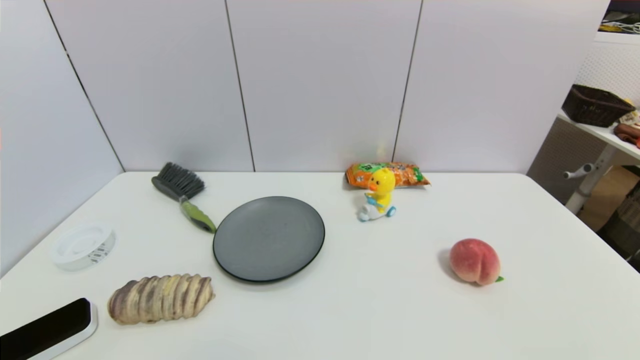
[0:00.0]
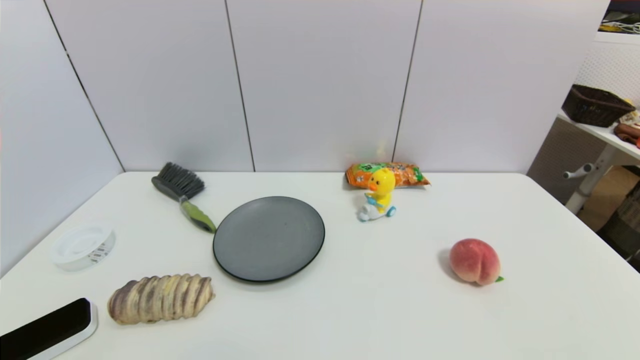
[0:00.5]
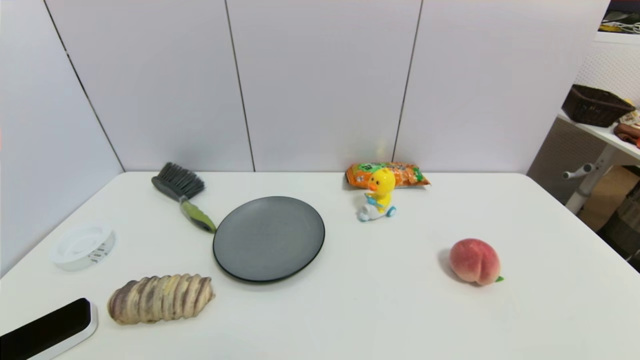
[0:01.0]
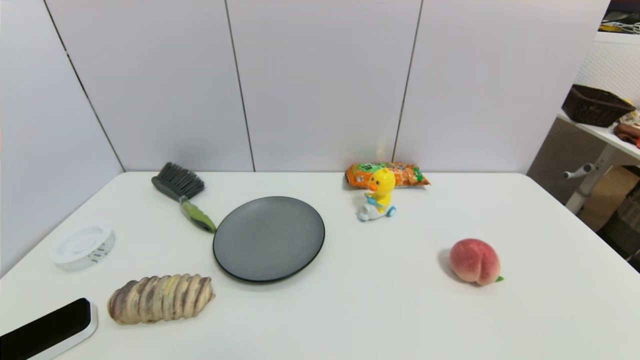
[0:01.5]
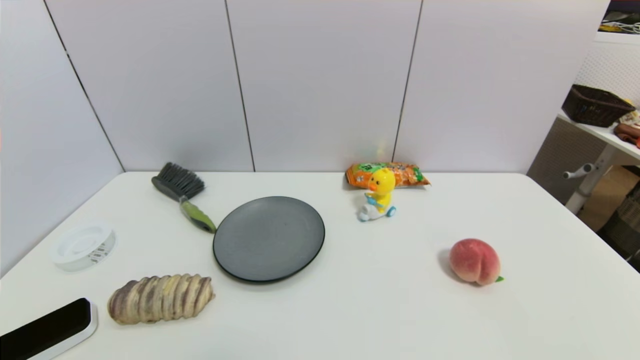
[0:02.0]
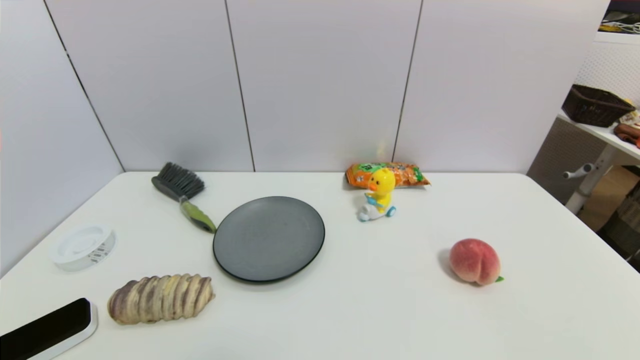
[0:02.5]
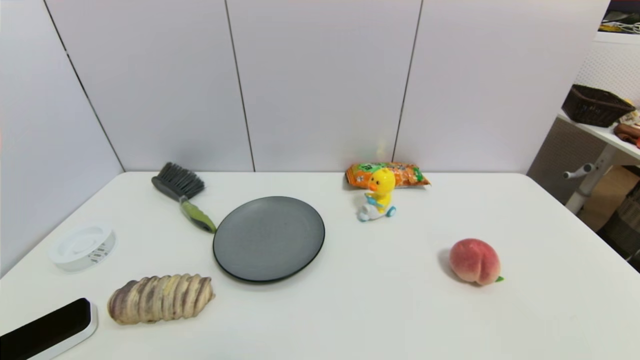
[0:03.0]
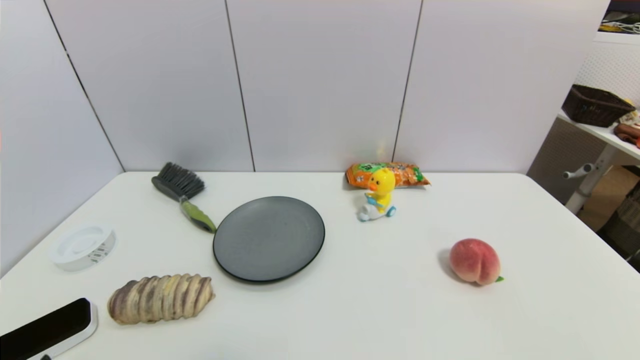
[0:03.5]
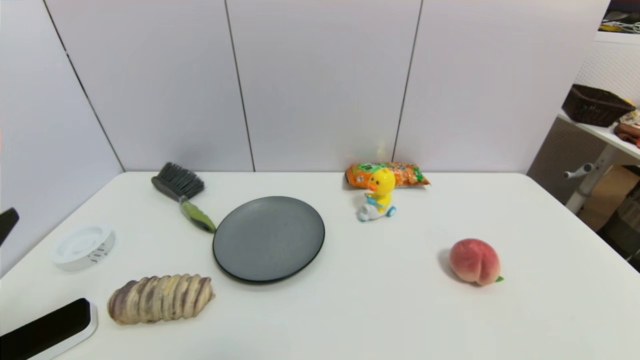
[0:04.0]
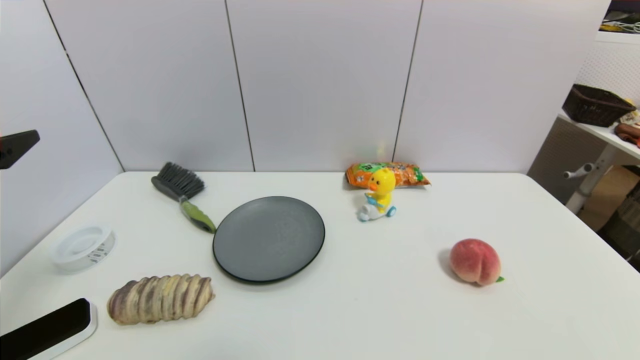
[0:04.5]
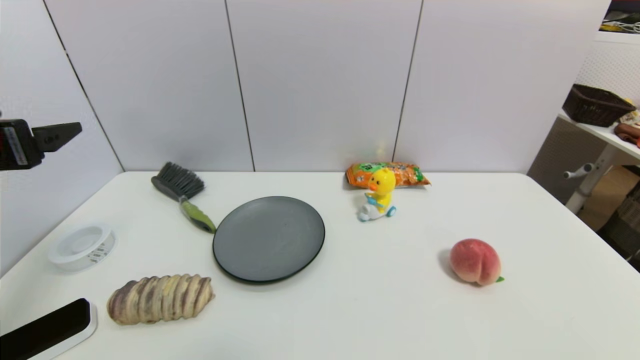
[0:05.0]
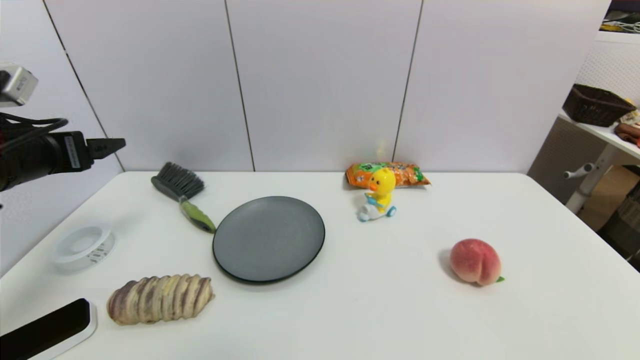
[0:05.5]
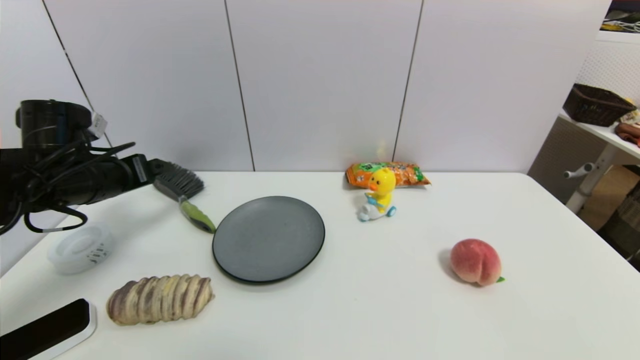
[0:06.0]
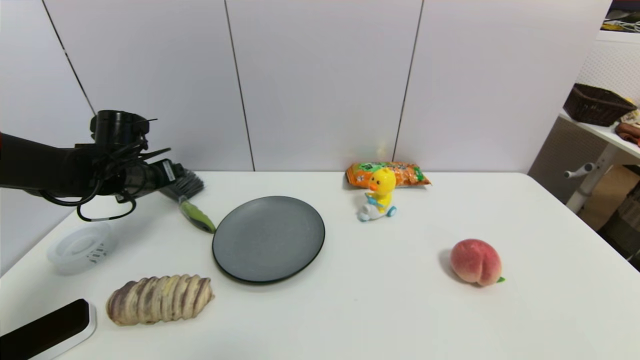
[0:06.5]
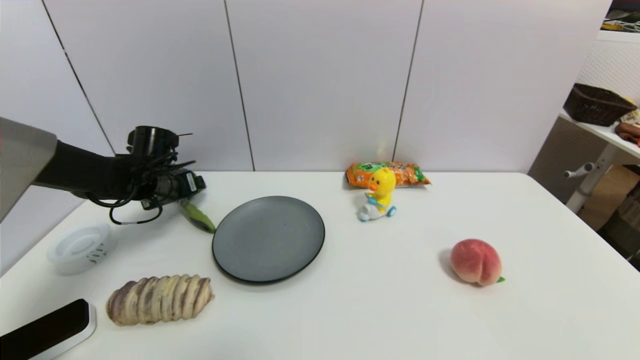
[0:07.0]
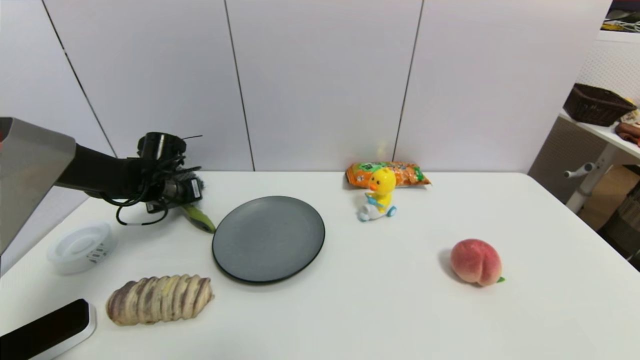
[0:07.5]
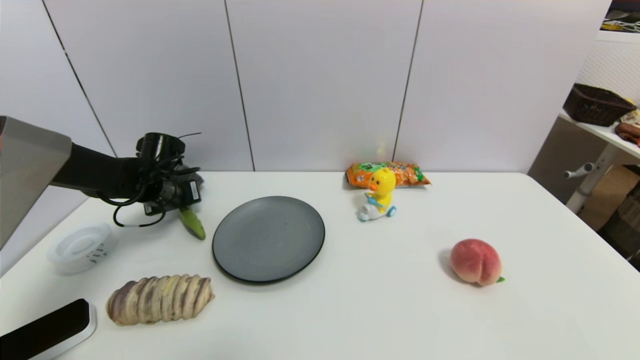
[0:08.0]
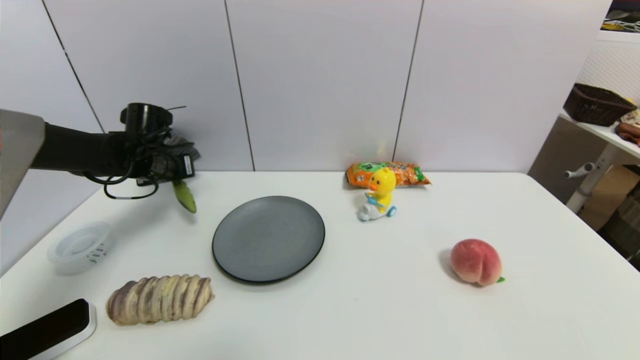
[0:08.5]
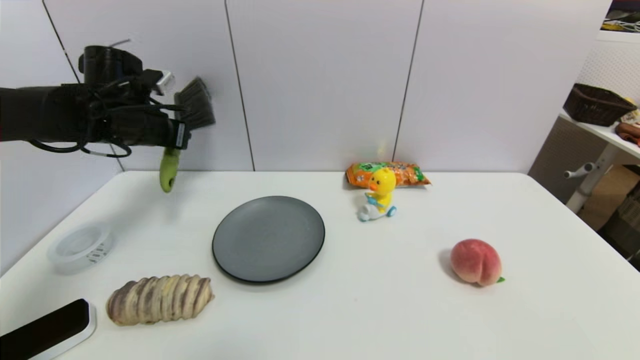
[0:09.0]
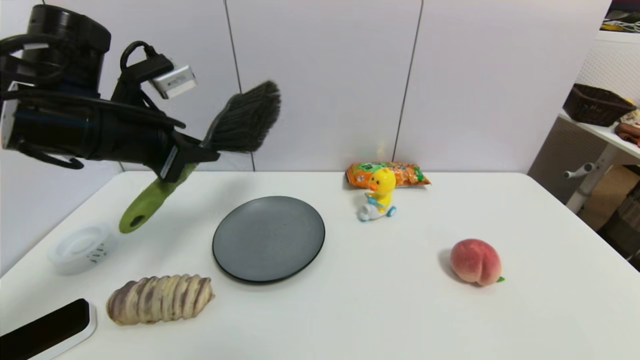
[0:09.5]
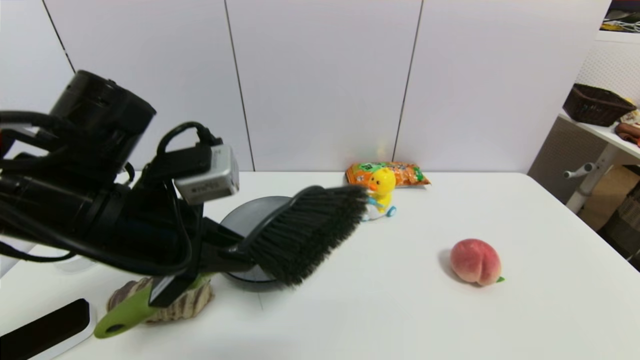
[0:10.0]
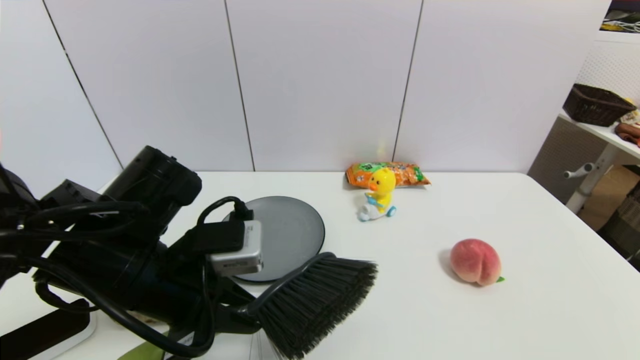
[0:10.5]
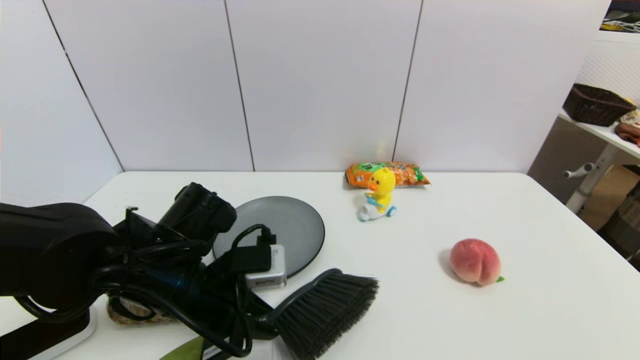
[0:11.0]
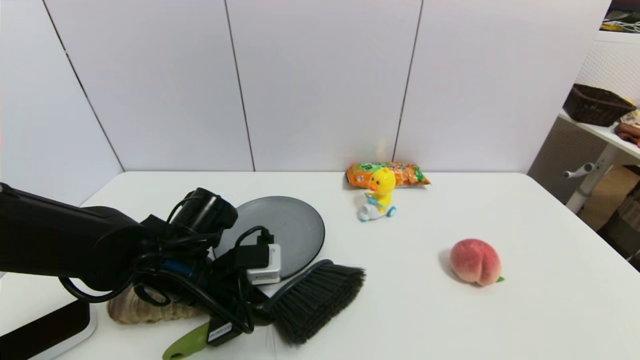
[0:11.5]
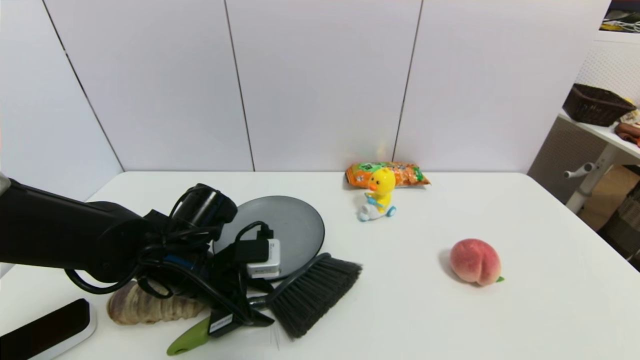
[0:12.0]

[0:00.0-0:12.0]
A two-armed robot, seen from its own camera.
Task of the whole recording: put the brush in the designated position.
Step, 0:04.0 to 0:08.0: Grasp the brush with left gripper.
Step, 0:08.5 to 0:12.0: Place the brush on the table with left gripper.
0:00.0 to 0:02.0: Both grippers stay about where they are.
0:04.0 to 0:06.0: The left gripper shifts approximately 25 cm forward.
0:06.0 to 0:08.0: The left gripper is displaced forward and downward by about 15 cm, and closes.
0:08.0 to 0:10.0: The left gripper travels backward, upward and to the right by about 30 cm.
0:10.0 to 0:12.0: The left gripper travels downward and forward by roughly 15 cm, and opens its fingers.

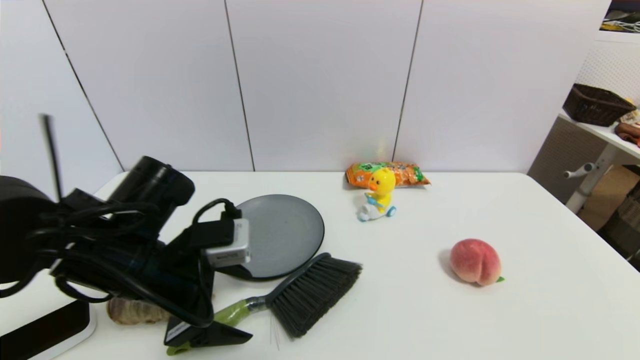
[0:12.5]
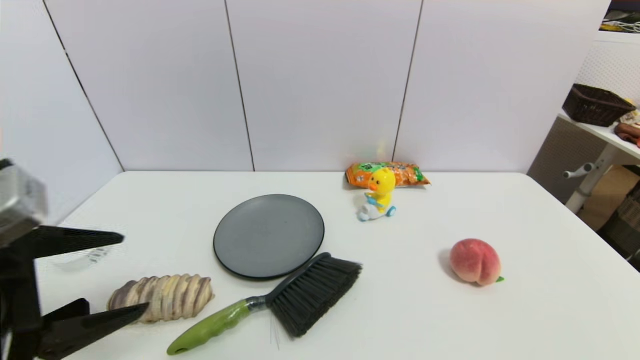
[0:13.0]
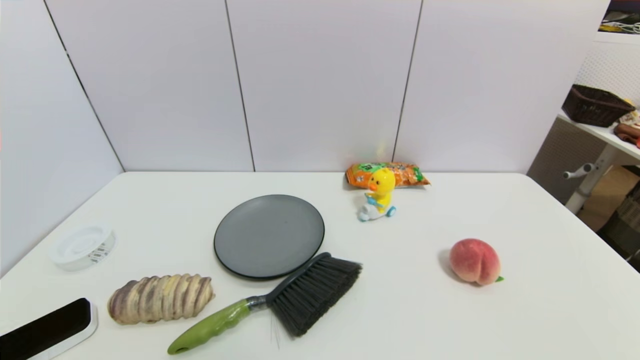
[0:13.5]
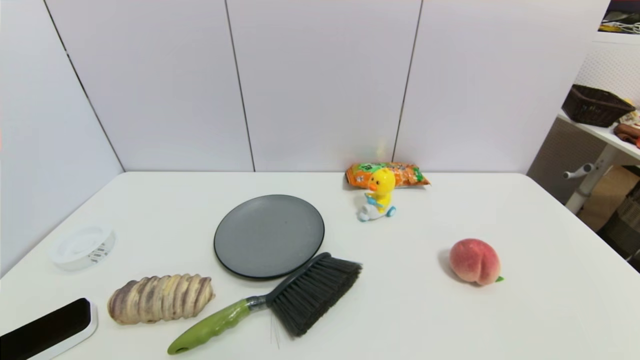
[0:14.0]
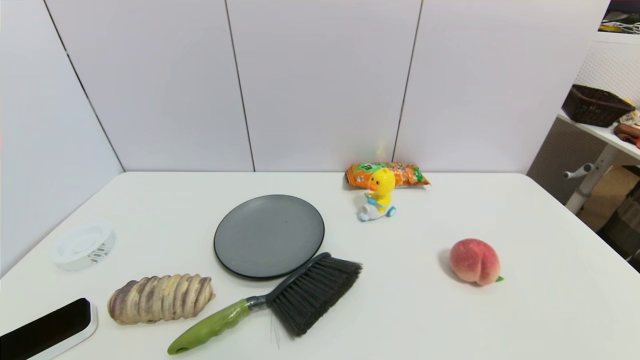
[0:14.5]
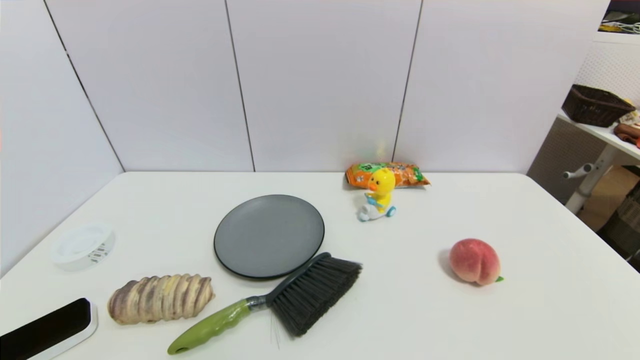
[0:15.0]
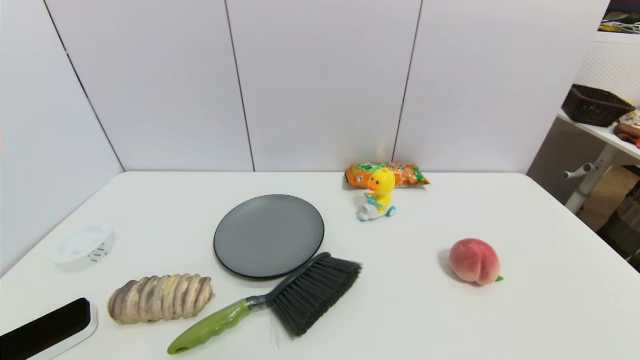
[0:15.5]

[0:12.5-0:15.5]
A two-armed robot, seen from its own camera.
Task of the whole recording: put the brush in the designated position.
0:12.5 to 0:14.0: The left gripper heads backward, to the left and downward, covering about 25 cm.
0:14.0 to 0:15.5: Both grippers stay put.

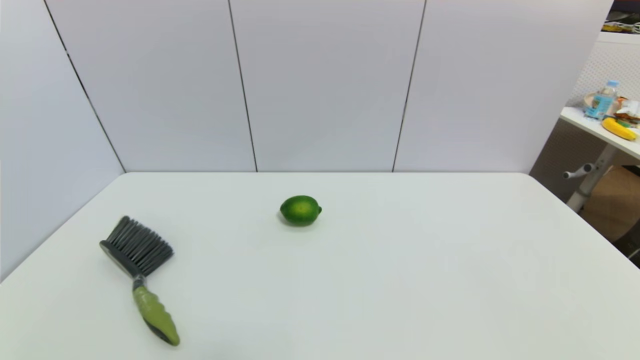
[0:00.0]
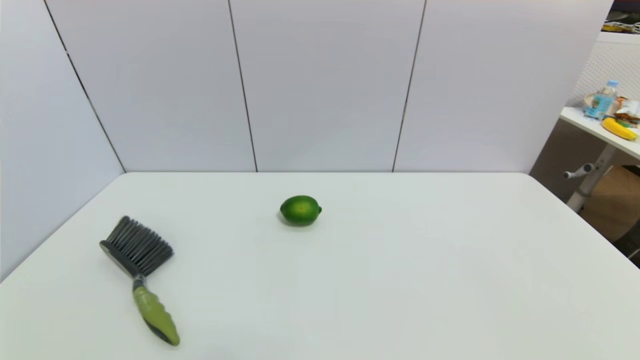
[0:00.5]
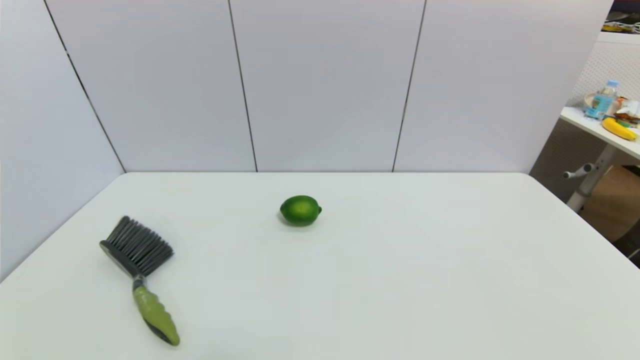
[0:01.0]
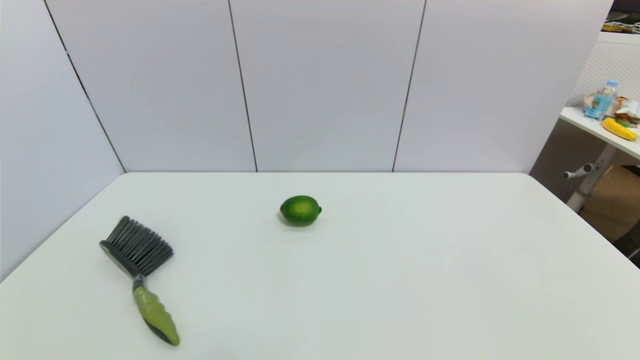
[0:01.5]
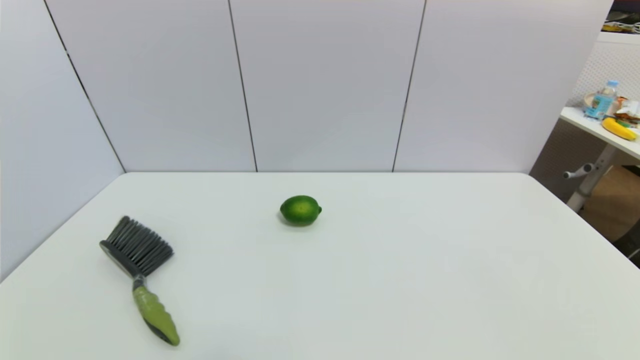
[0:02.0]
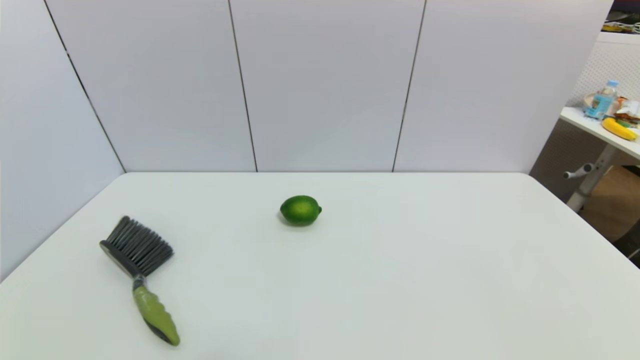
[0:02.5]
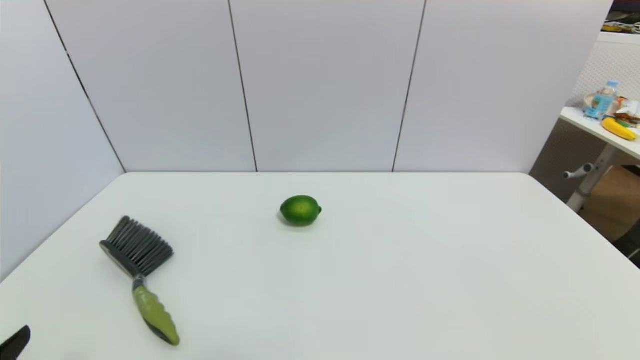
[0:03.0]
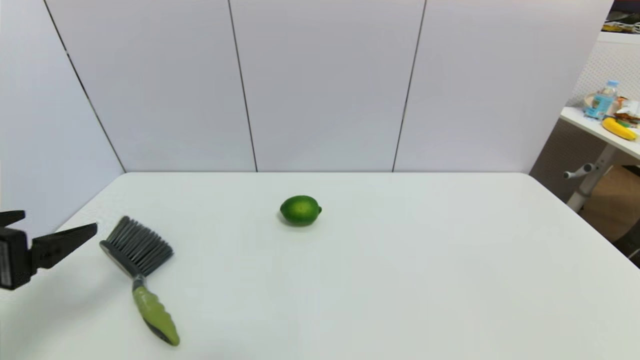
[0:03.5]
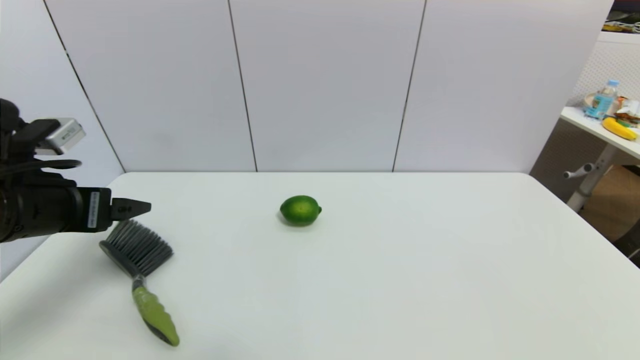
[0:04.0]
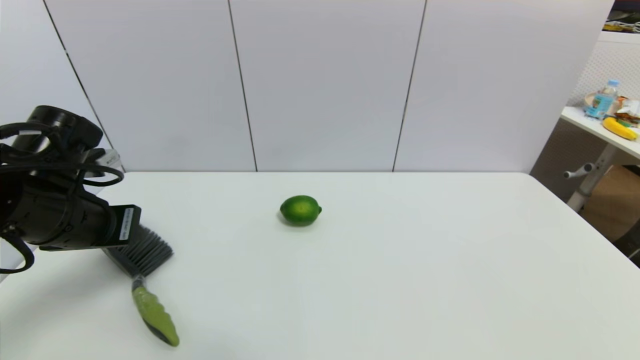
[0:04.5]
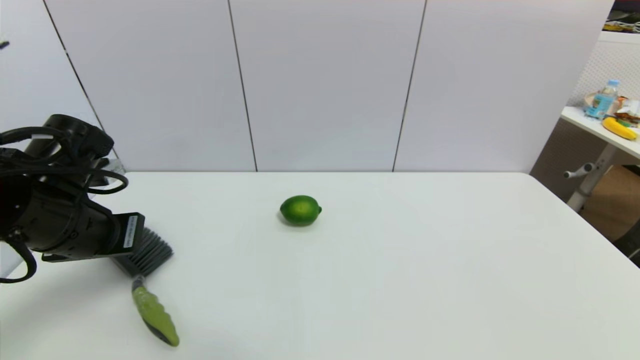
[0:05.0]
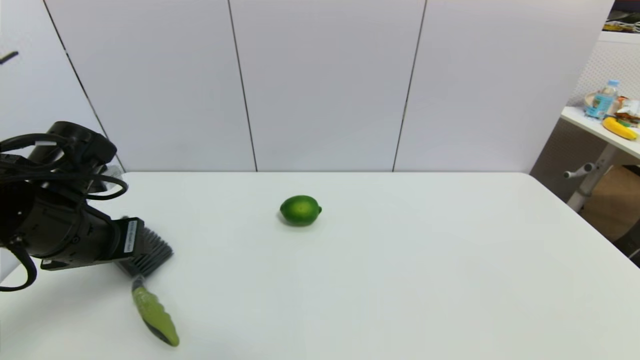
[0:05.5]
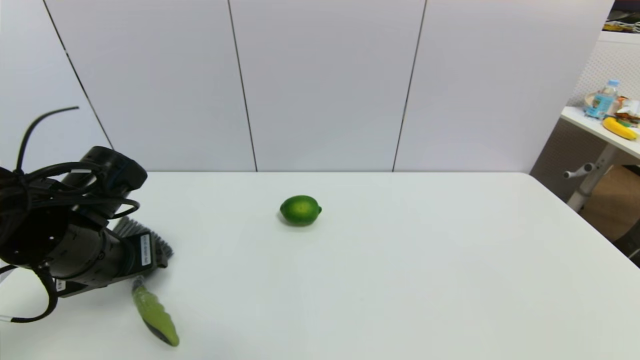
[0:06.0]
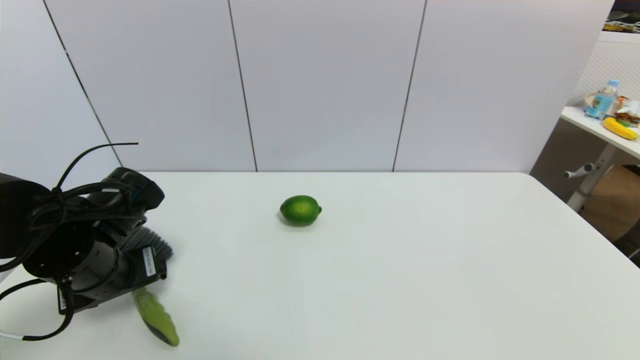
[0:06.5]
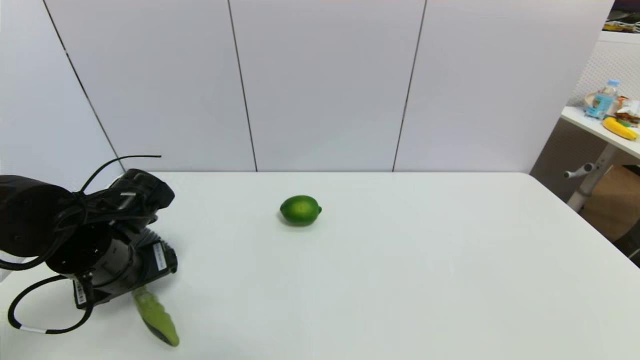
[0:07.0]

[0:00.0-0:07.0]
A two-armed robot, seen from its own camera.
Task of the whole recording: put the brush in the designated position.
0:00.0 to 0:02.0: Both grippers stay put.
0:02.0 to 0:03.5: The left gripper travels upward and forward by approximately 20 cm.
0:03.5 to 0:05.0: The left gripper travels forward by roughly 10 cm, and closes up.
0:05.0 to 0:07.0: The left gripper moves downward, some 5 cm, and opens.
